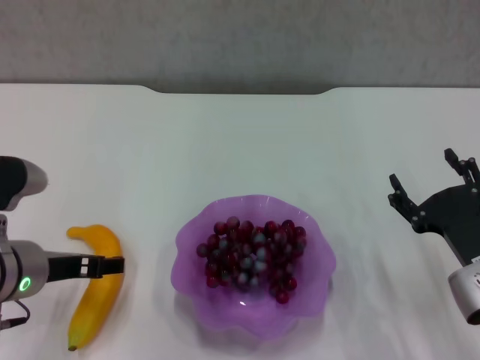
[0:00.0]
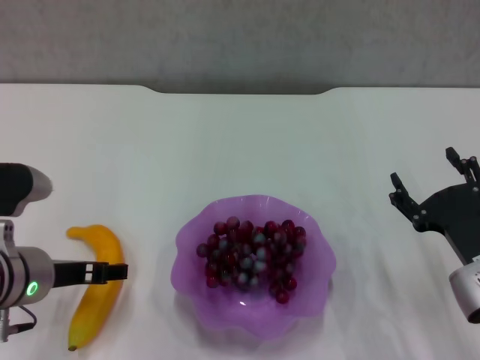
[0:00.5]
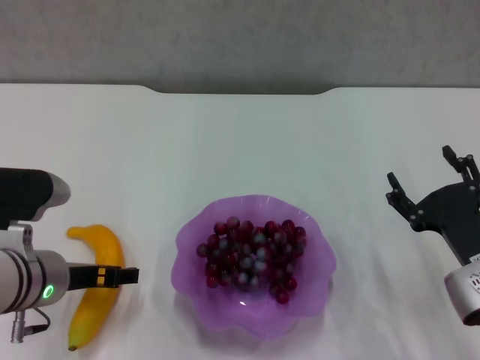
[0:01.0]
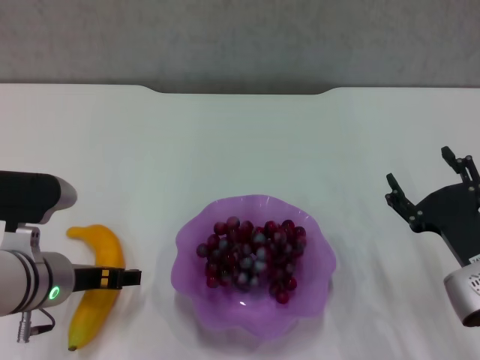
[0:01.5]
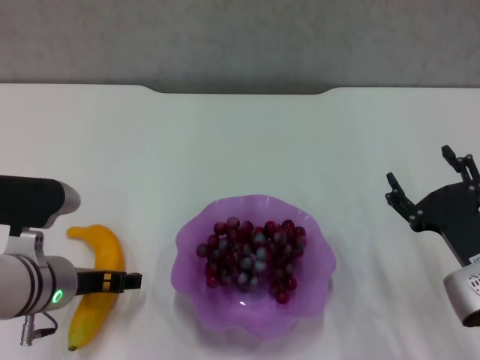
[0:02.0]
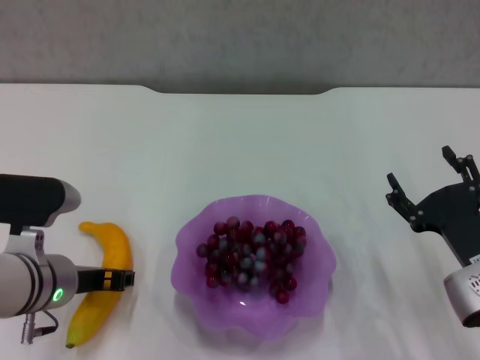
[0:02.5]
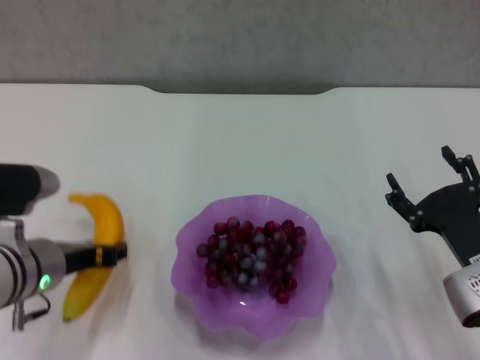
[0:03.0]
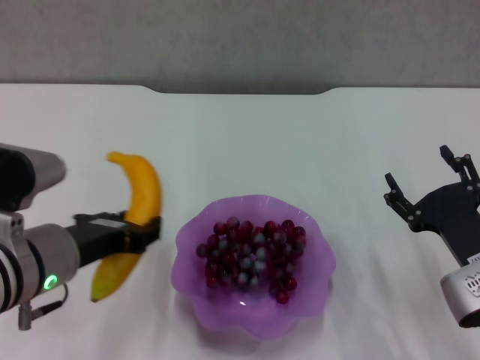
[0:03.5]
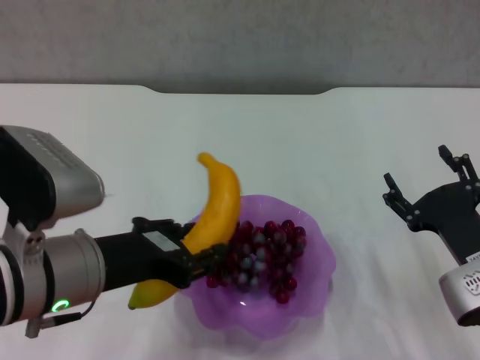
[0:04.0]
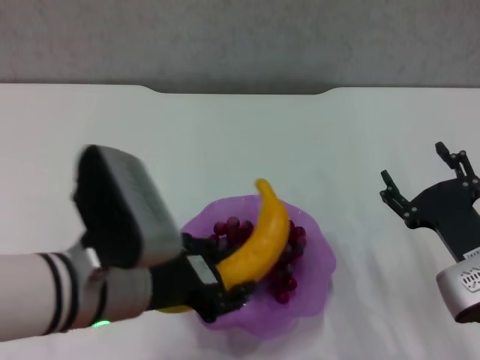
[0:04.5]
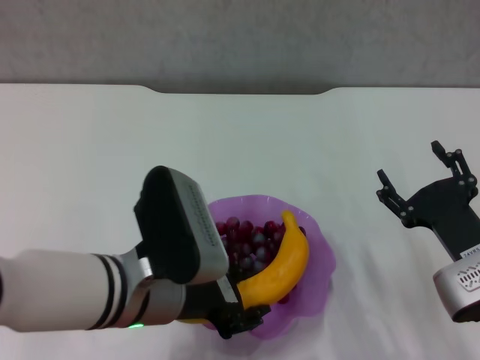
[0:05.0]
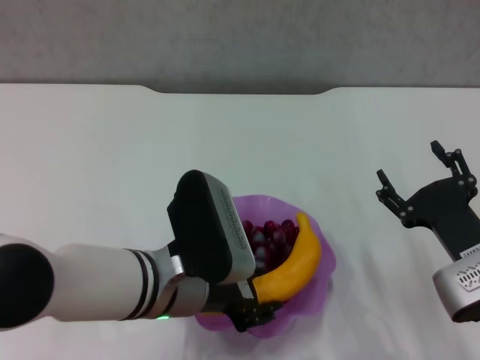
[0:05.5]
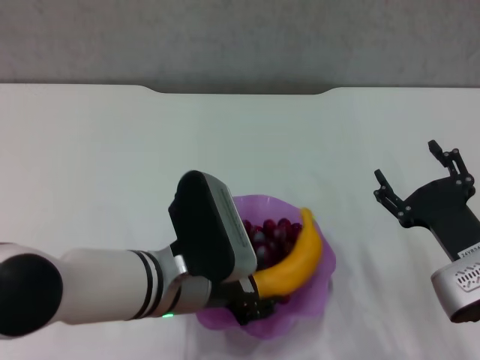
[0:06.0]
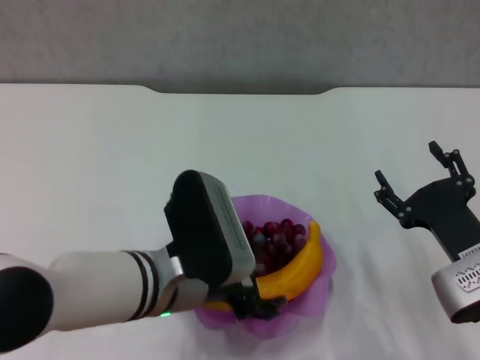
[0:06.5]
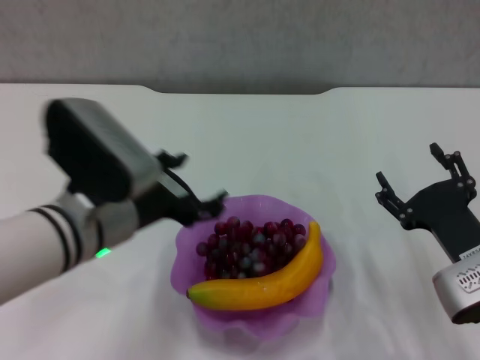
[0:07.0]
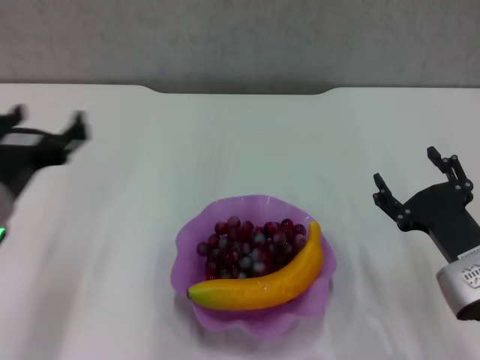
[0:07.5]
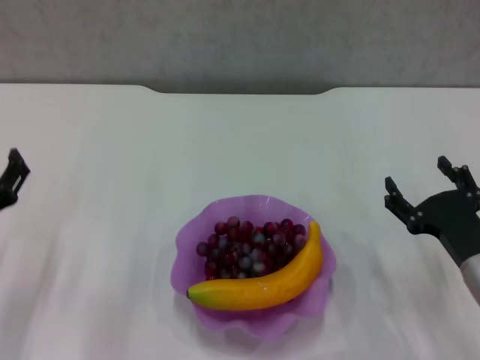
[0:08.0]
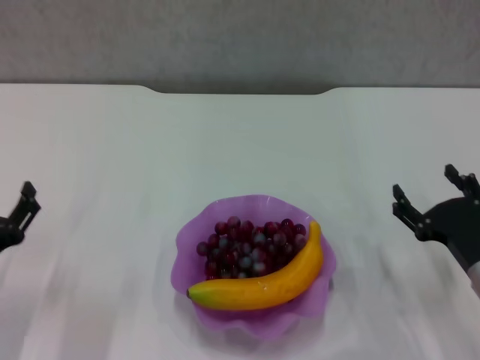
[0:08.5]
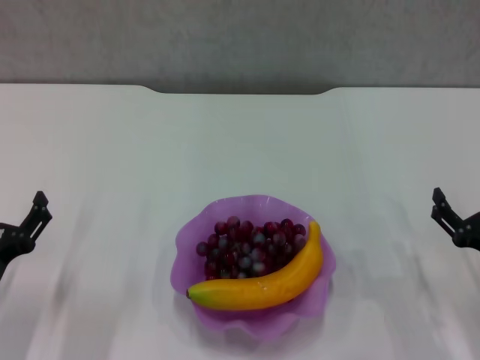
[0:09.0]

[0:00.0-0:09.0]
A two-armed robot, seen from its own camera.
Step, 0:00.0 to 0:02.5: Grasp the banana with left gripper.
Step, 0:03.0 to 0:06.5: Place the banana in the purple plate with left gripper.
0:00.0 to 0:02.0: There are only small adjustments of the grippers.
0:02.0 to 0:04.5: The left gripper heads upward and to the right, covering roughly 10 cm, and closes up.
0:04.5 to 0:07.0: The left gripper opens up.
0:07.0 to 0:09.0: The left gripper heads to the left, downward and backward, covering approximately 20 cm, while the right gripper heads to the right, covering roughly 5 cm.
